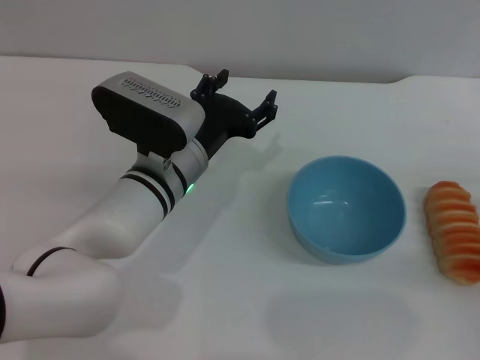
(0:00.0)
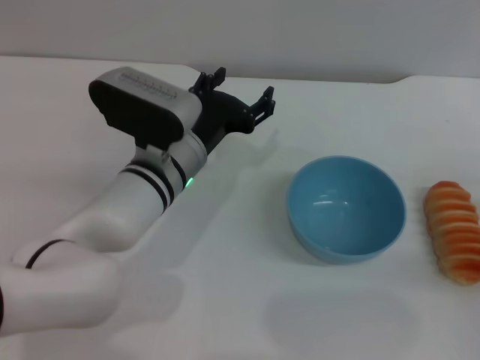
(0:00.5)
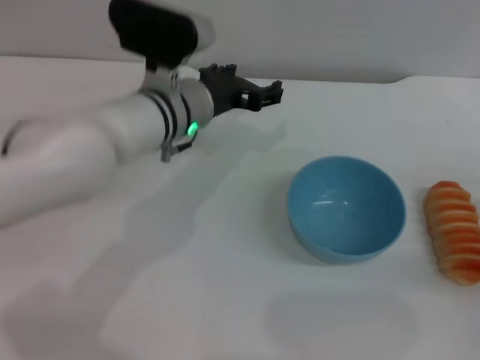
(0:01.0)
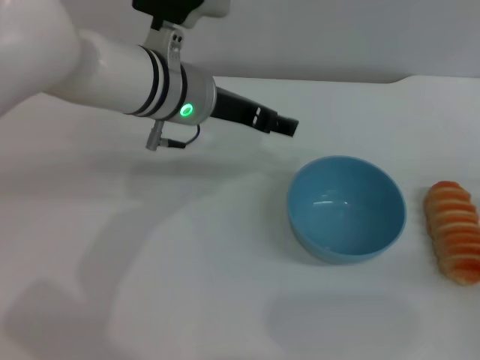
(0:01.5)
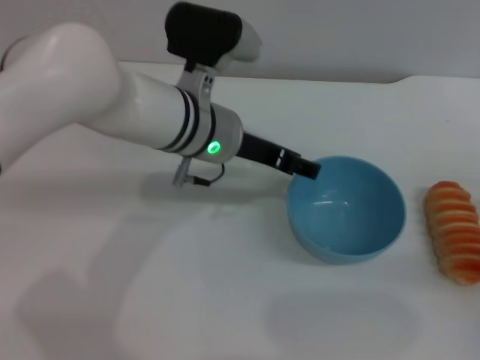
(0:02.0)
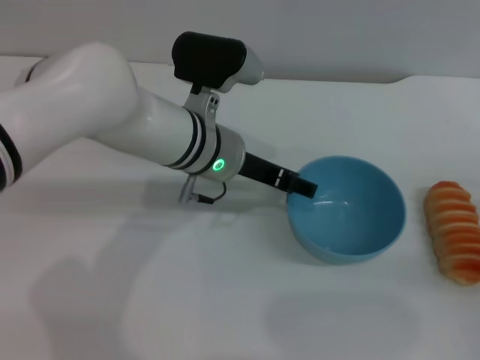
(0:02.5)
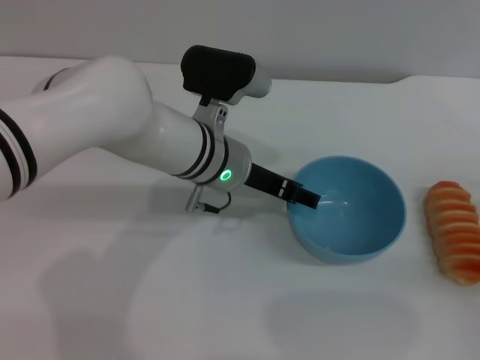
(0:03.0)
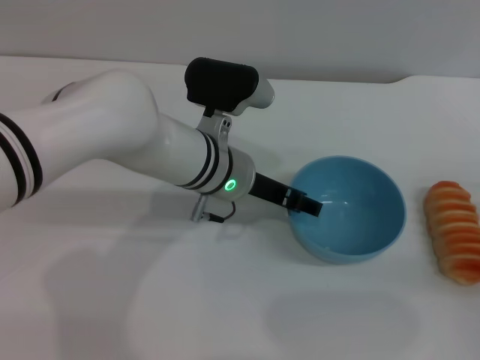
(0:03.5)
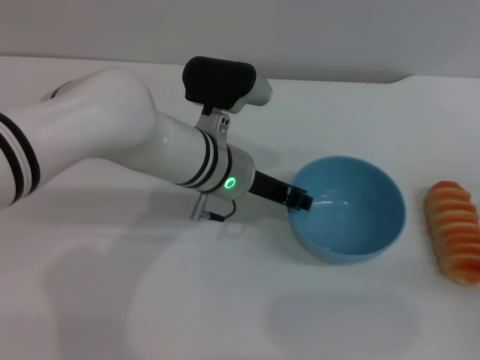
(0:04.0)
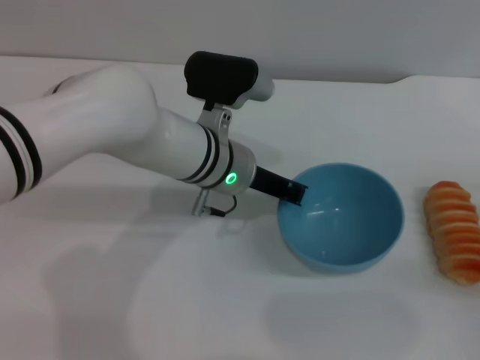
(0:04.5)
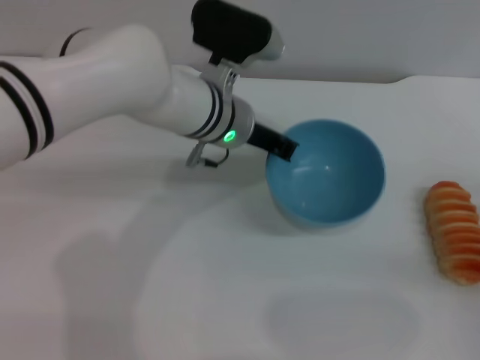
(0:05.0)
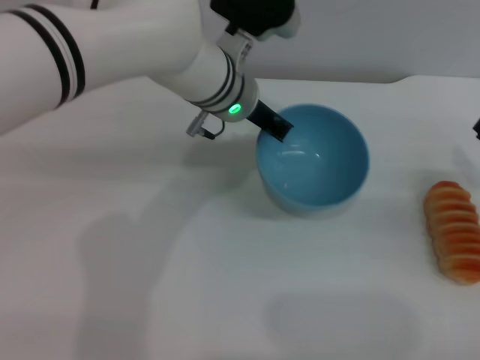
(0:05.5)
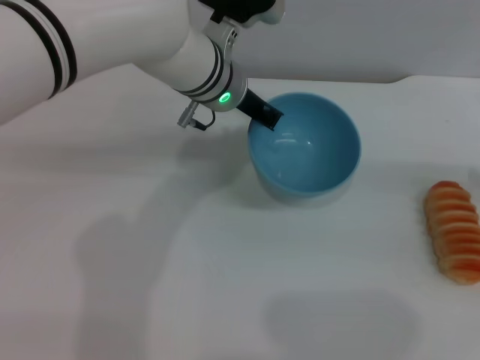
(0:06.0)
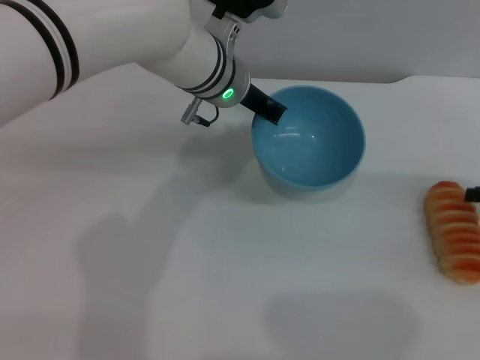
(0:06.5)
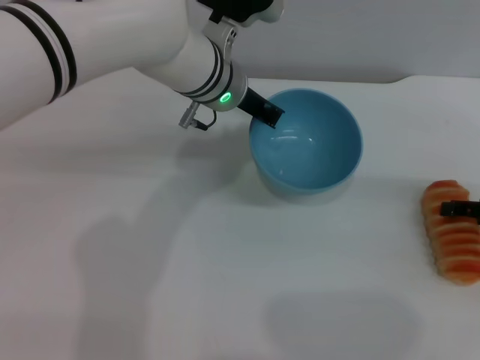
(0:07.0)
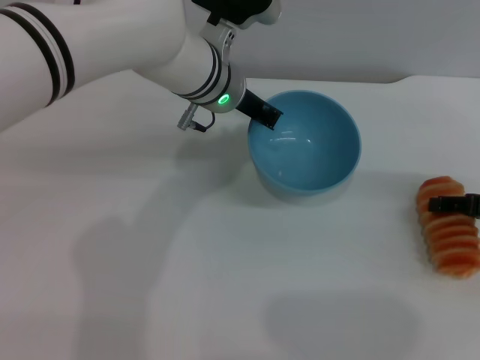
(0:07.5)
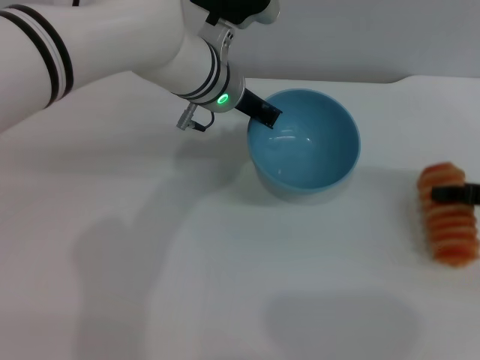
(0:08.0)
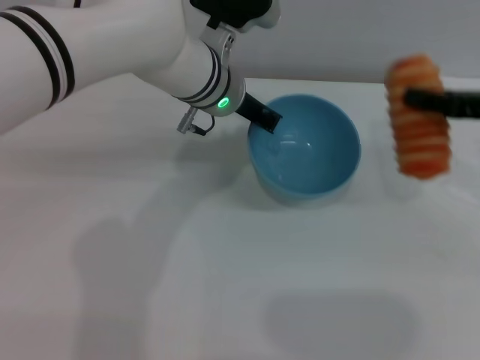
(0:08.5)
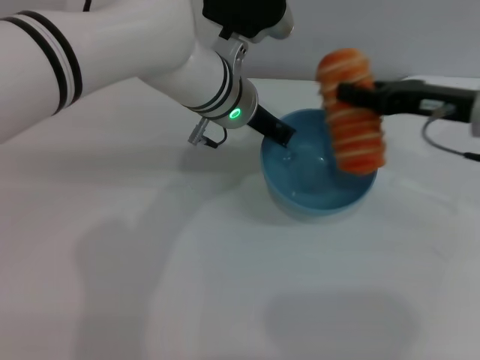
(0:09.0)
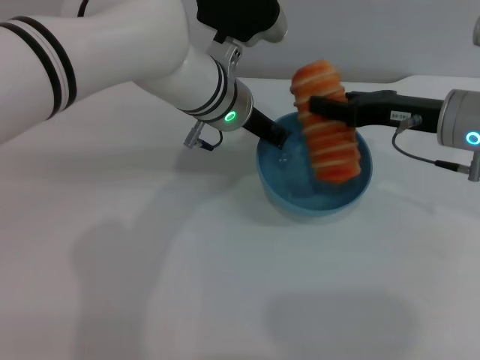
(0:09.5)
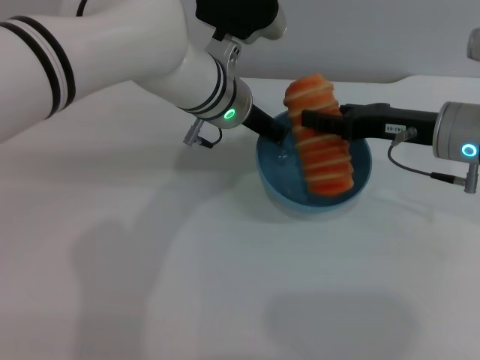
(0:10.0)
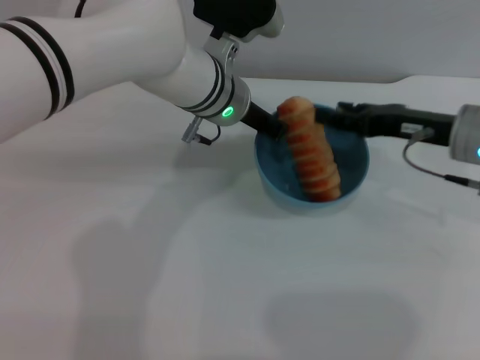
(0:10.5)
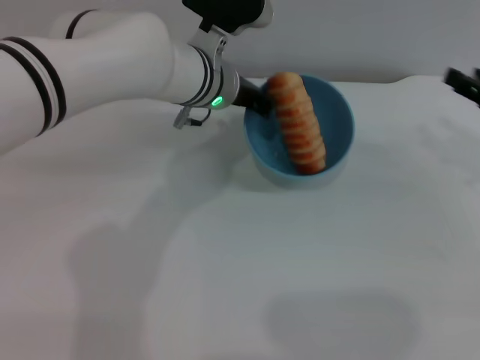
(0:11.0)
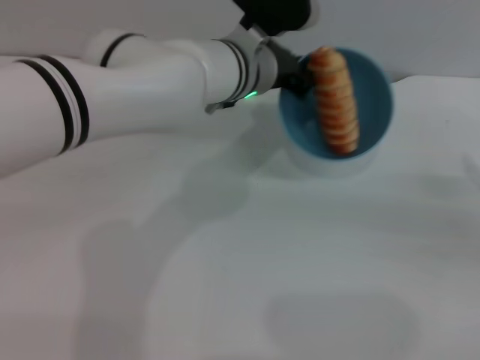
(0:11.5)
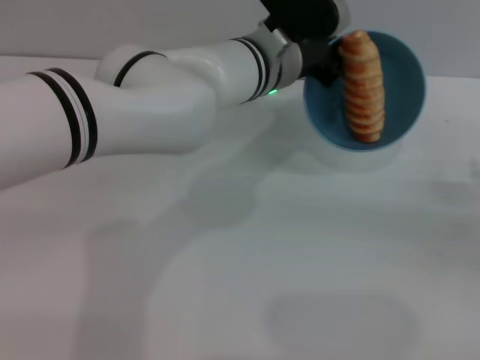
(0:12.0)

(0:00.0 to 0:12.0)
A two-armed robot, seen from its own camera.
Task of the whole recording: put the bread into the blue bowl and pour it out repeatedly.
Step, 0:00.0 - 0:06.0: Pick up the bowl with the left gripper.
Step, 0:06.5 - 0:08.5: Pick up the bread with the right gripper.
Step, 0:09.0 - 0:10.5: Place the bread into the bowl.
0:00.0 - 0:02.0: The left gripper goes some 5 cm upward.
0:02.0 - 0:04.0: The left gripper closes.
0:04.0 - 0:06.0: Both grippers travel together forward and upward, about 10 cm. The left gripper closes up.
0:06.0 - 0:08.0: The right gripper closes its fingers.
0:08.0 - 0:10.0: The right gripper is displaced to the left by approximately 10 cm.
0:10.0 - 0:12.0: The right gripper travels to the right and backward by about 20 cm.

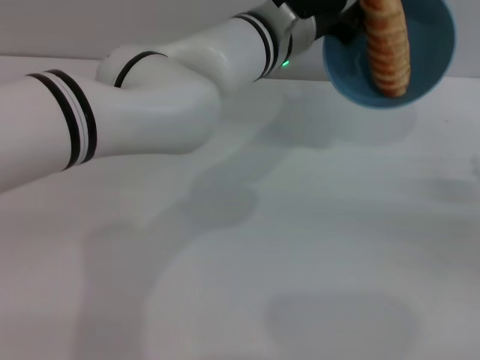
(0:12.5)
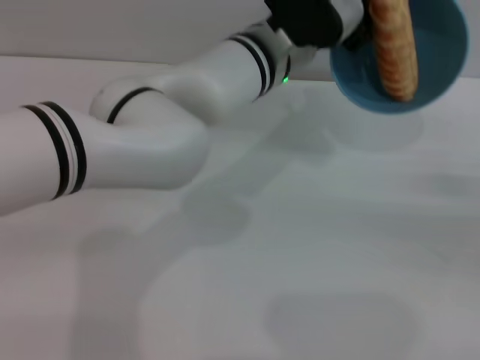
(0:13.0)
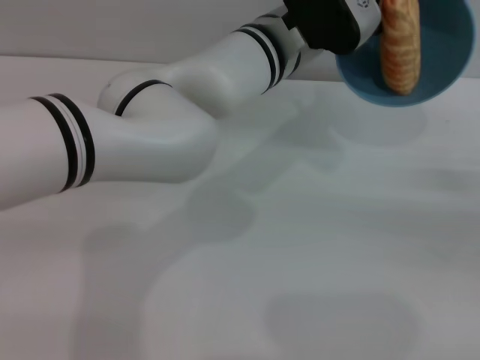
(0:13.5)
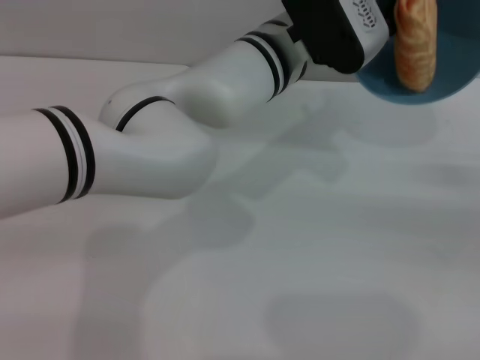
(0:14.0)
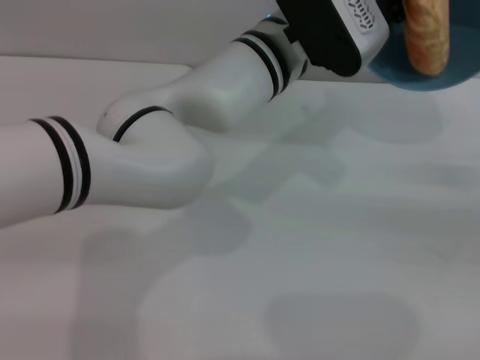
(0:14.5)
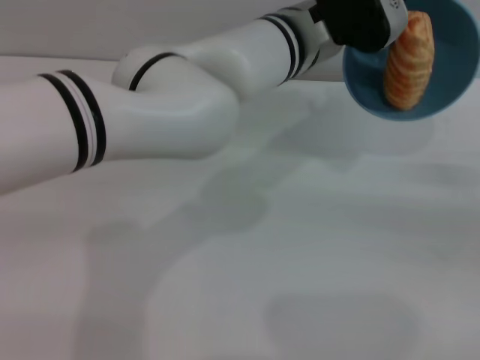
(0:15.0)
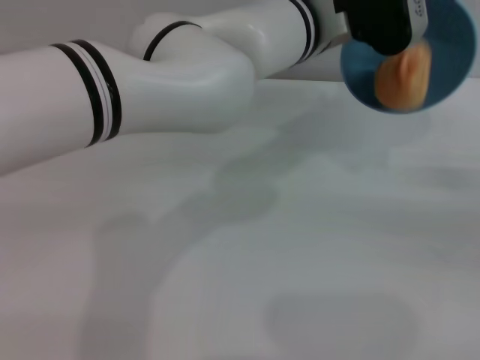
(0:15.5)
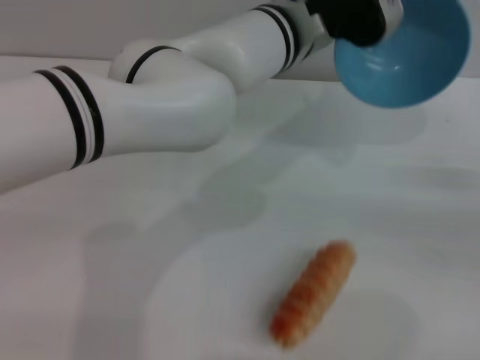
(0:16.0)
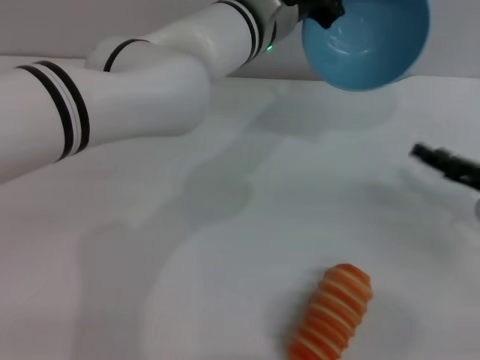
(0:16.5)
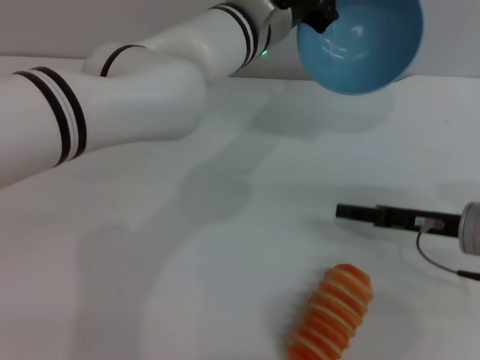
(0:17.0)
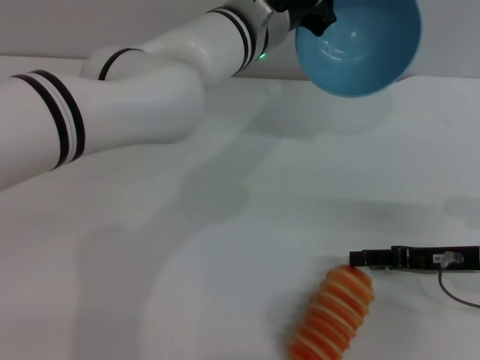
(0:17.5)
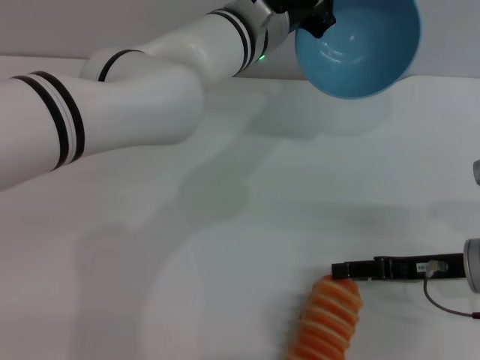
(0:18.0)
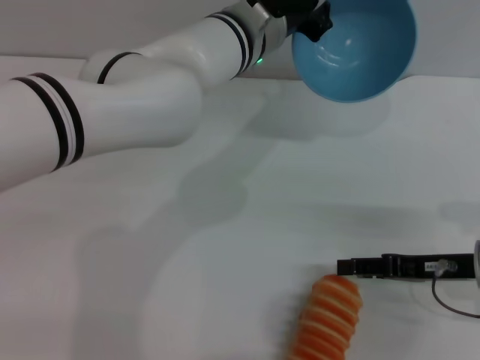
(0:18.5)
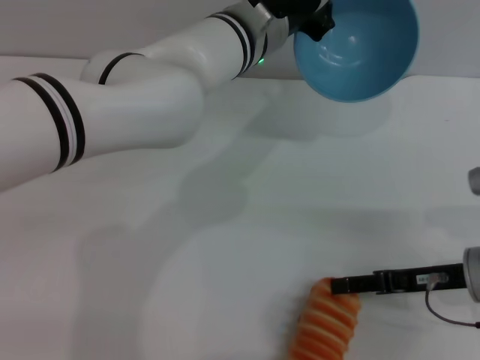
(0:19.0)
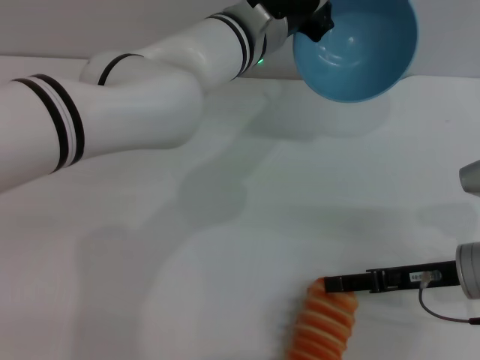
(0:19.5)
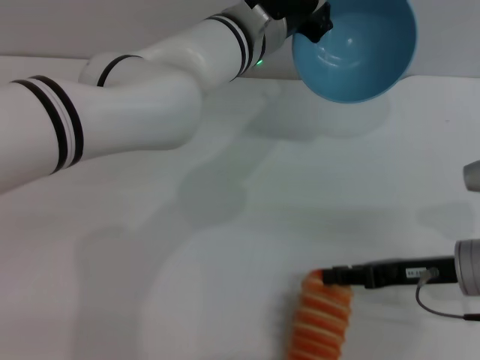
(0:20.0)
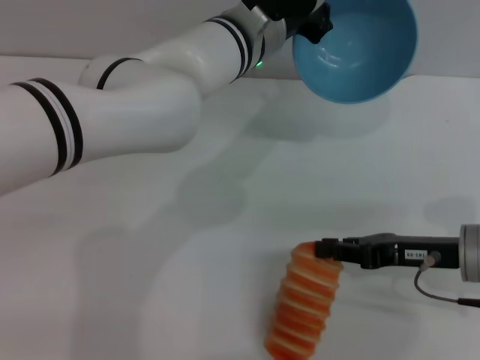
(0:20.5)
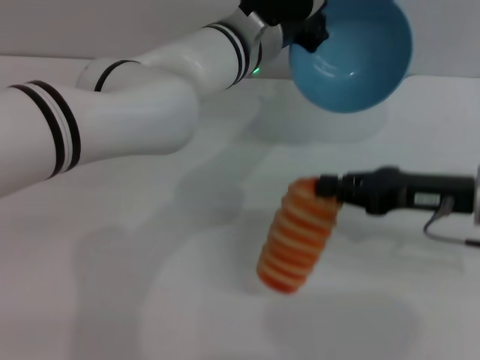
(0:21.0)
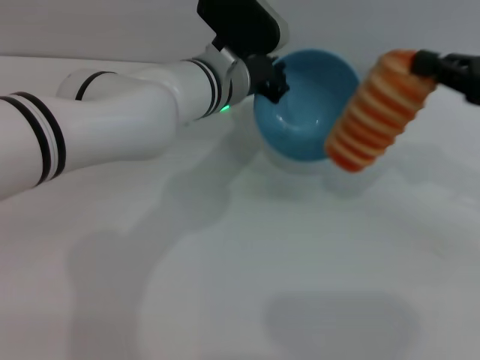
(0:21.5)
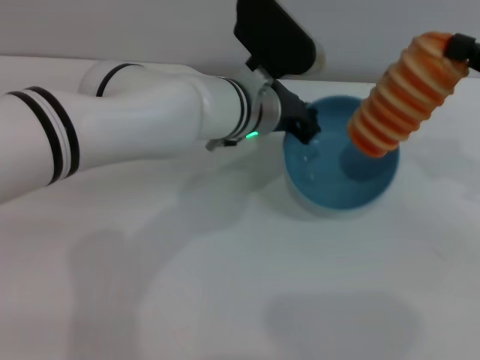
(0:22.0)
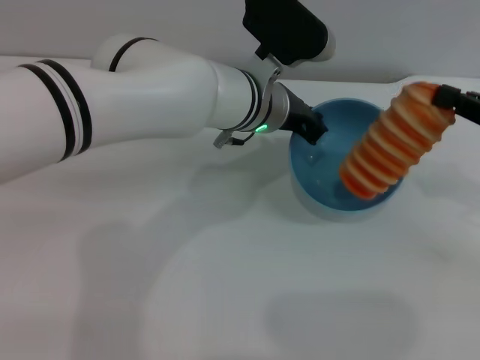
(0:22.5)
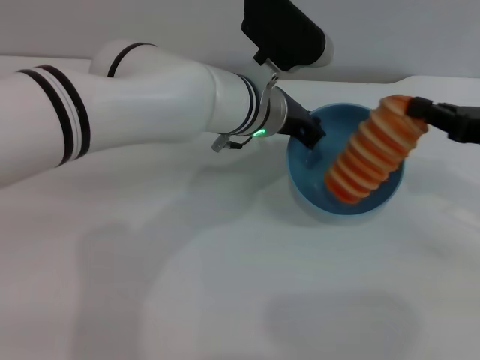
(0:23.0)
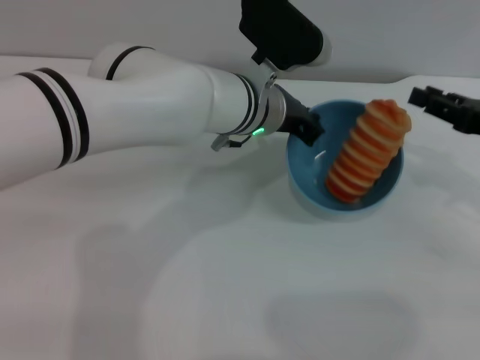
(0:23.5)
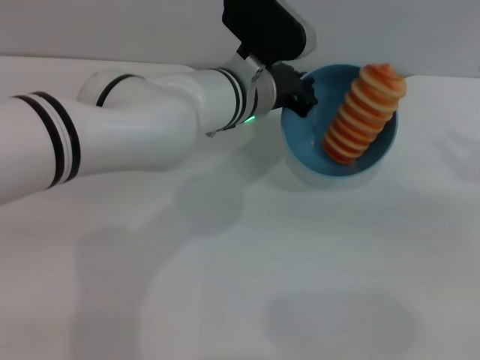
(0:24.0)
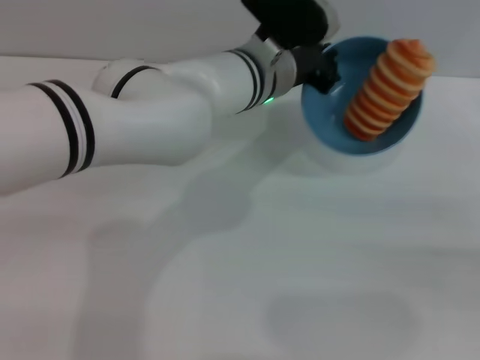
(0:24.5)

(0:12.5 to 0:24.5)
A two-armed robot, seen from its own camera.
Task of the whole recording: put the bread into the blue bowl and pour it out repeatedly.
Step, 0:12.5 - 0:16.0: Pour the bread out of the bowl.
Step, 0:16.5 - 0:21.0: Pick up the bread with the right gripper.
Step, 0:21.5 - 0:23.5: Place the bread into the bowl.
0:14.5 - 0:16.5: The right gripper moves to the left, roughly 5 cm.
0:16.5 - 0:18.5: The right gripper moves approximately 5 cm.
0:18.5 - 0:20.5: The right gripper closes up.
0:20.5 - 0:22.5: The right gripper heads upward and to the right, covering roughly 10 cm.
0:22.5 - 0:24.5: The right gripper goes approximately 10 cm backward, to the right and downward, and opens up.

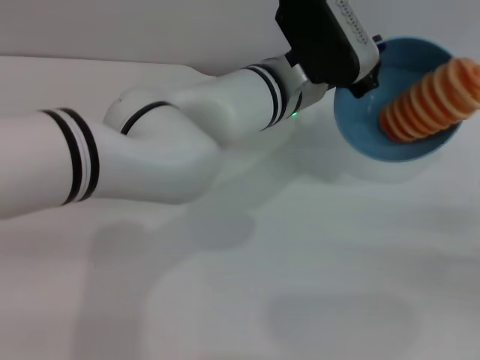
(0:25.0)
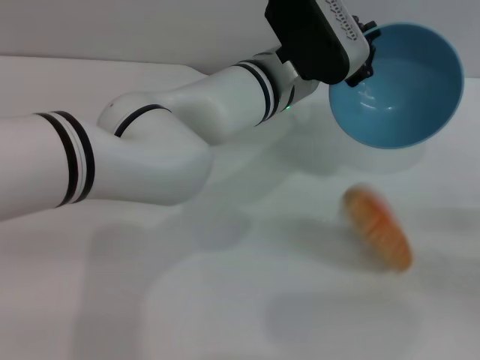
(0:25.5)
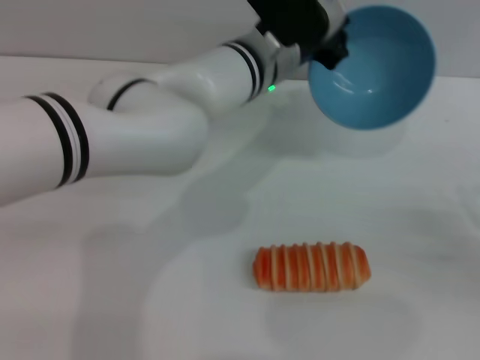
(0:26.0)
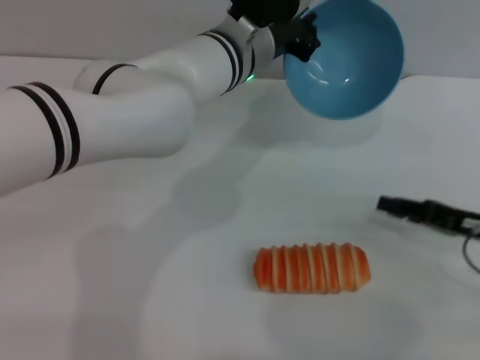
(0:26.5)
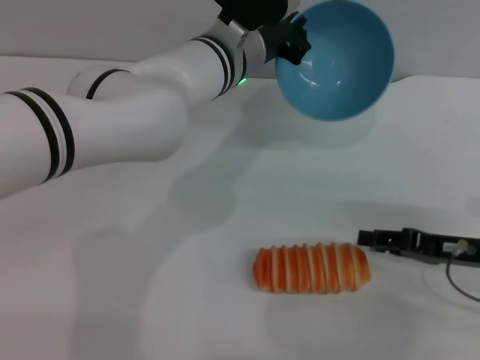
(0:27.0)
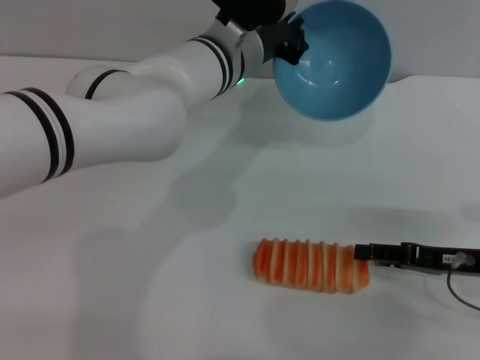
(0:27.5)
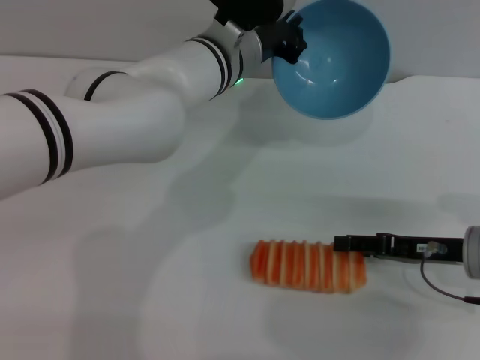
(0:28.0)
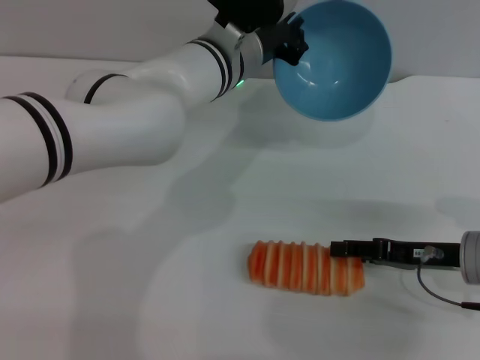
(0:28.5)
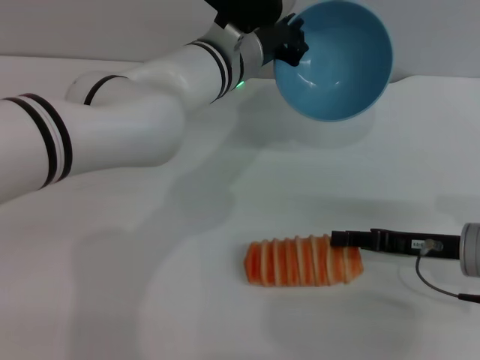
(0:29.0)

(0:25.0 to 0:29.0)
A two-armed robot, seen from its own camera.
Task of the whole recording: put the bread into the blue bowl and pour it out repeatedly.
0:25.0 - 0:27.0: The left gripper changes place by about 5 cm, while the right gripper shifts approximately 10 cm to the left.
0:27.0 - 0:29.0: The grippers make only small movements.
